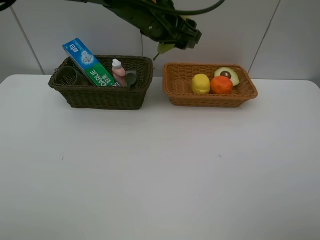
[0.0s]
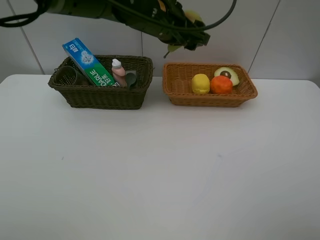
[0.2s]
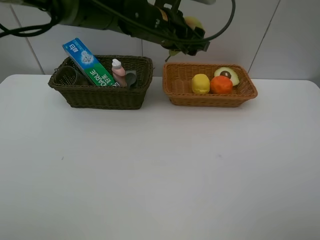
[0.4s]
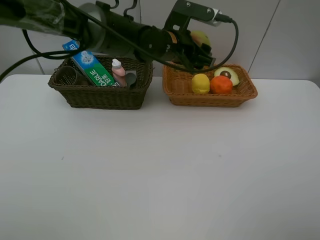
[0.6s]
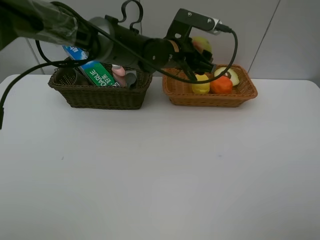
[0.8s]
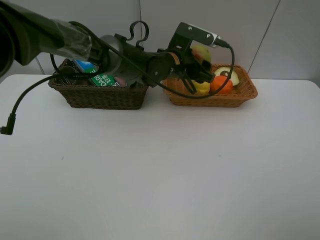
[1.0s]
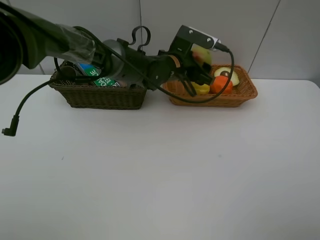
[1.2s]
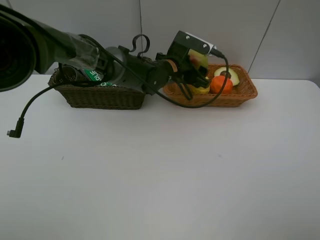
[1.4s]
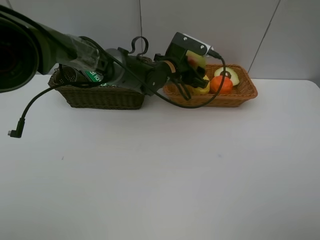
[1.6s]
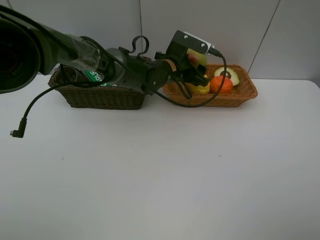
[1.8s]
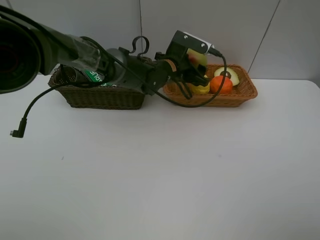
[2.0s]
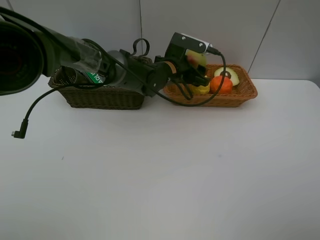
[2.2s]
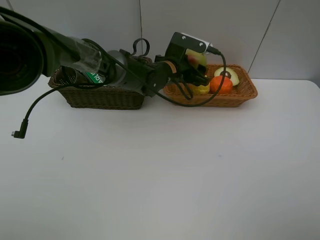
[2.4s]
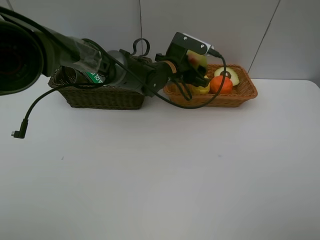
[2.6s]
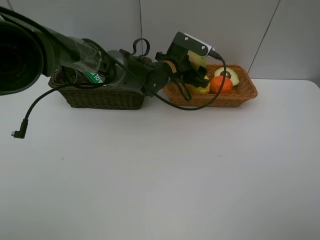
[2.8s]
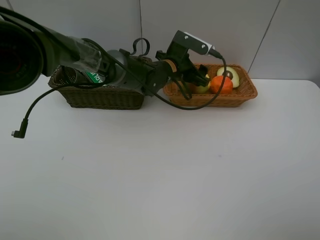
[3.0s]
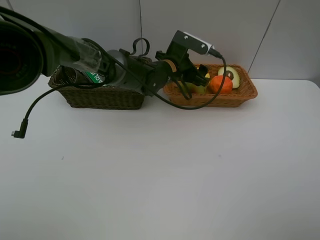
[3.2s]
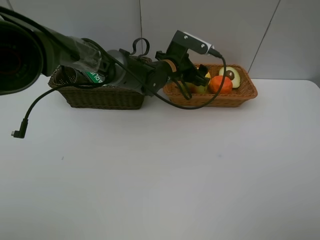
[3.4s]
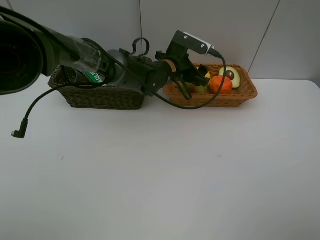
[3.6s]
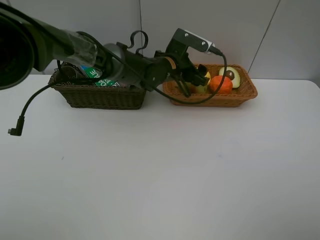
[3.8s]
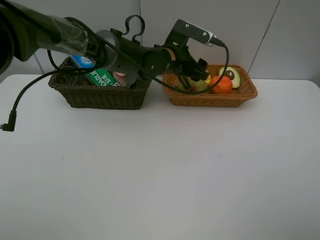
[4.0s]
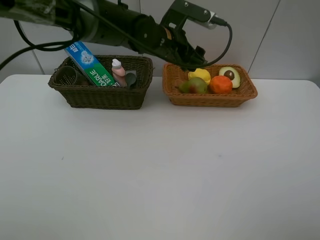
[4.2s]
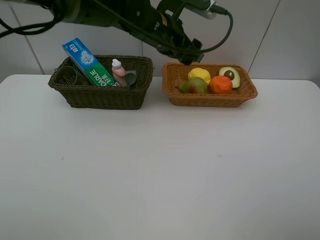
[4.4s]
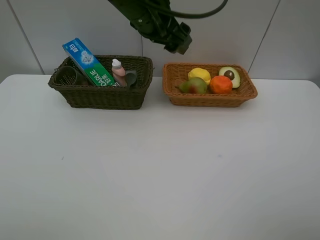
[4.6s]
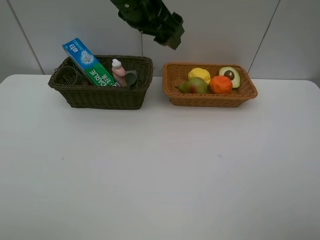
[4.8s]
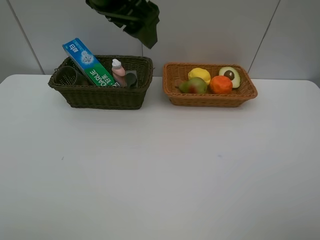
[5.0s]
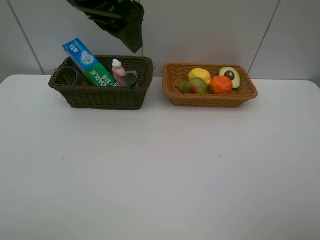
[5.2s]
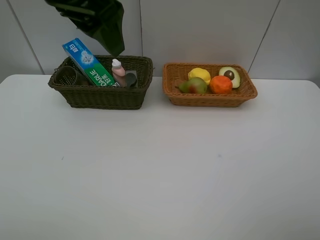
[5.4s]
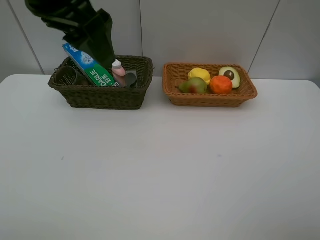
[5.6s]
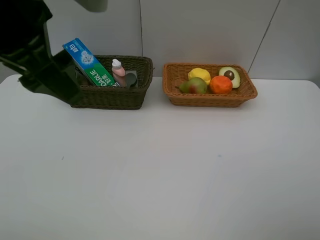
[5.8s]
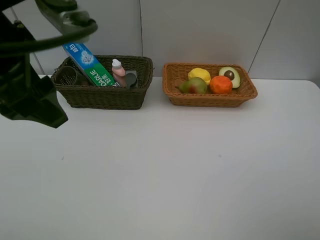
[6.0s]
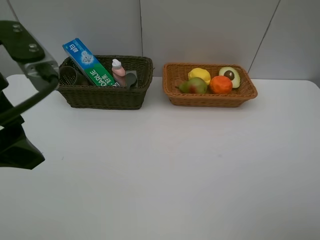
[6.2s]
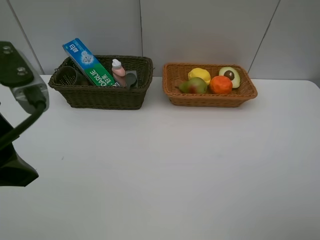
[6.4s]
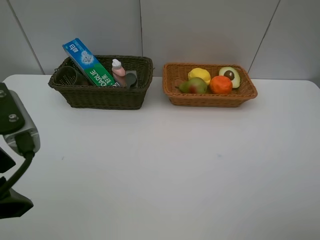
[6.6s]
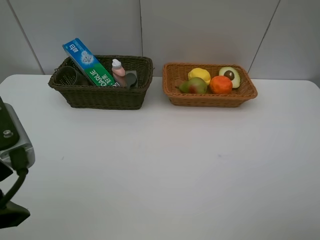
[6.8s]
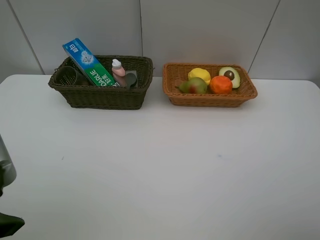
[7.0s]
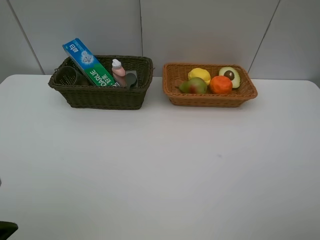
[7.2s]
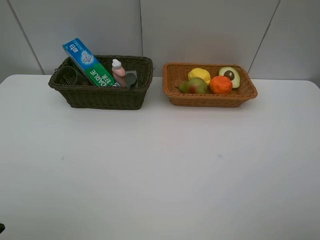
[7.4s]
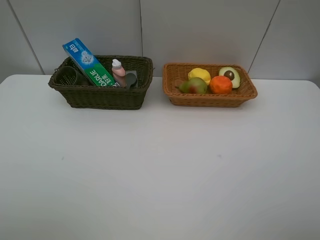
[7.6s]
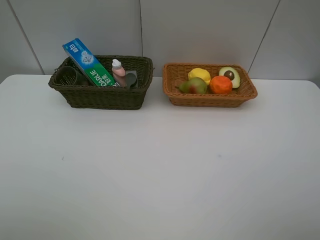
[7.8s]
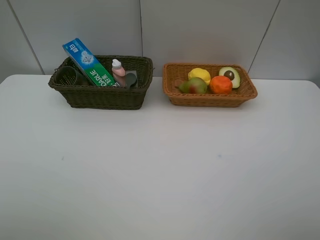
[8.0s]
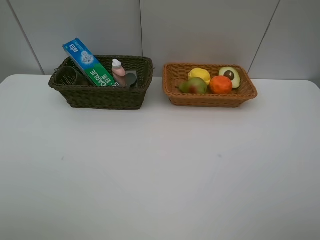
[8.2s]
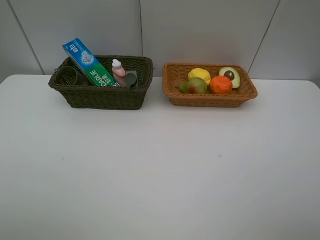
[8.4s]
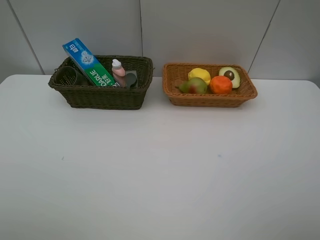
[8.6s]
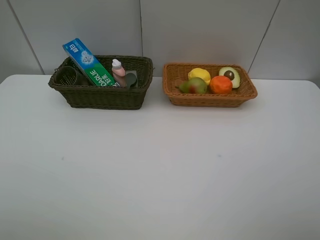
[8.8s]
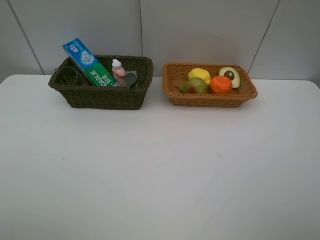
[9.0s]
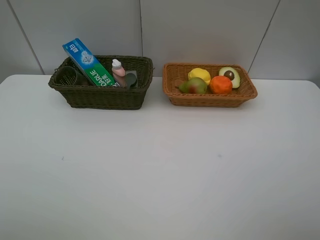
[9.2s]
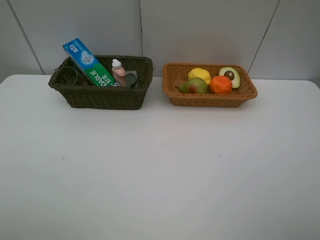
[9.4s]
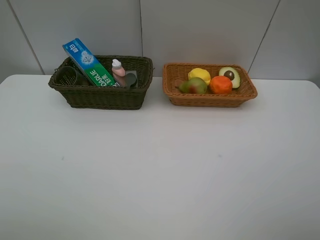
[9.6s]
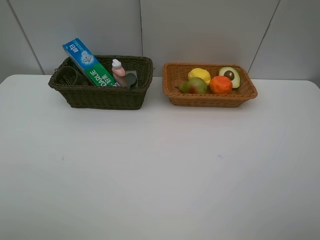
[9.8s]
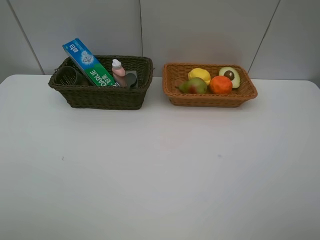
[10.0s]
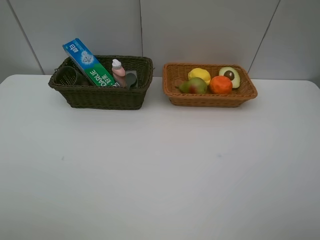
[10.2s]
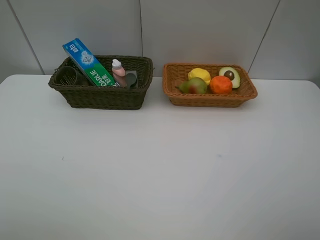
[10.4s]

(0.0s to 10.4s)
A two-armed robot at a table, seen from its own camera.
Task of the whole recording: Place multiple objects separately in different baskets.
Step, 0.0s - 4.0s: Place the pear in the light basket with left gripper.
0.0s - 1.4s: The left gripper shifts roughly 15 cm downward.
1.4s - 3.0s: Both grippers stay put.
3.0s - 4.4s: The left gripper heads upward, covering about 10 cm.
4.4s - 6.0s: The left gripper moves backward and to the left, approximately 25 cm.
6.0s - 7.4s: The left gripper moves backward, to the left and downward, about 15 cm.
9.0s - 10.4s: Neither gripper changes place.
